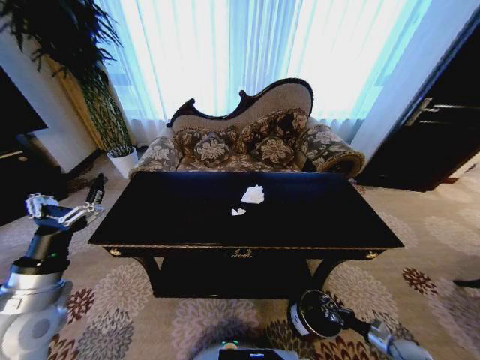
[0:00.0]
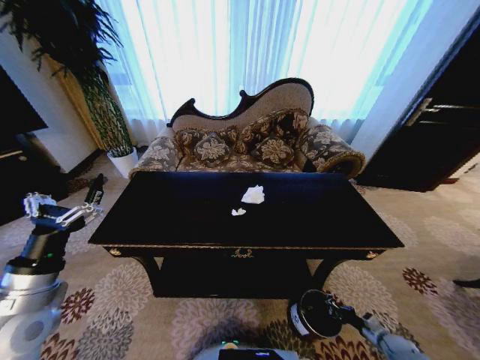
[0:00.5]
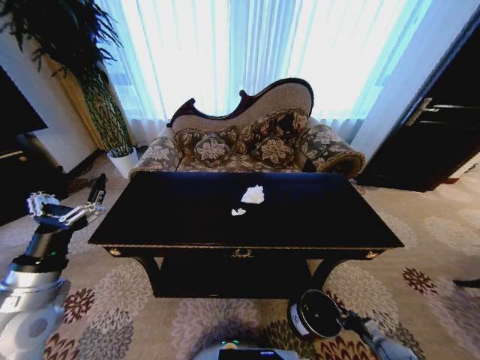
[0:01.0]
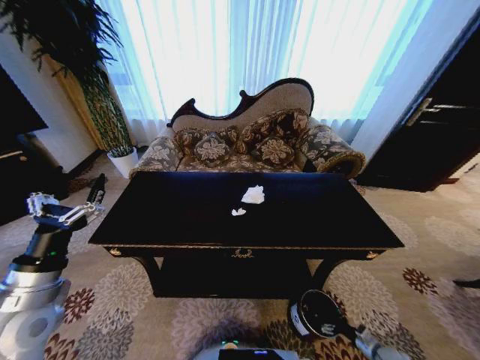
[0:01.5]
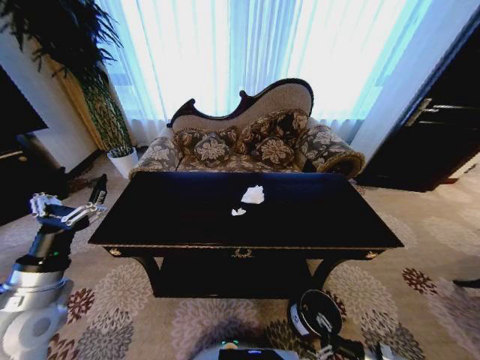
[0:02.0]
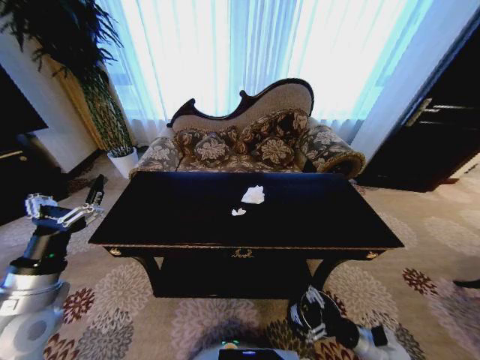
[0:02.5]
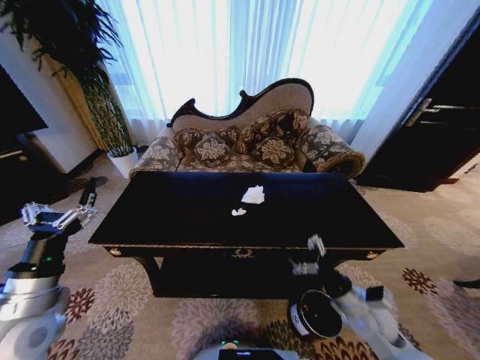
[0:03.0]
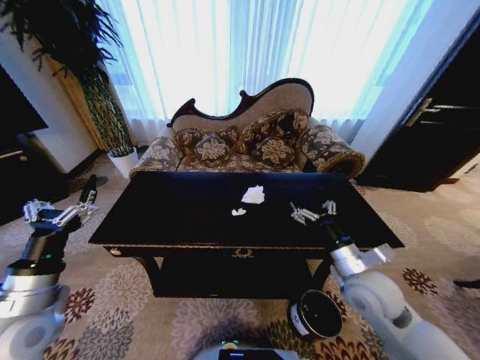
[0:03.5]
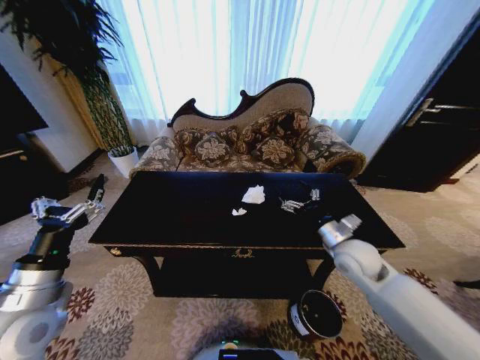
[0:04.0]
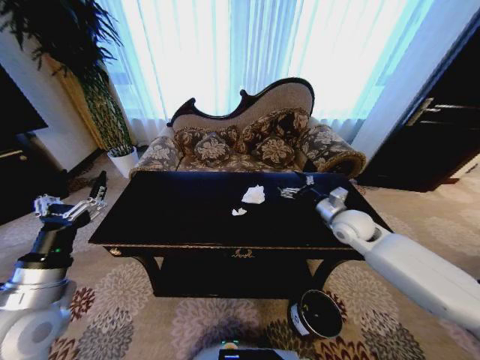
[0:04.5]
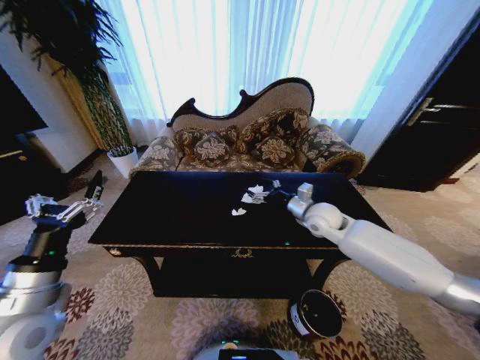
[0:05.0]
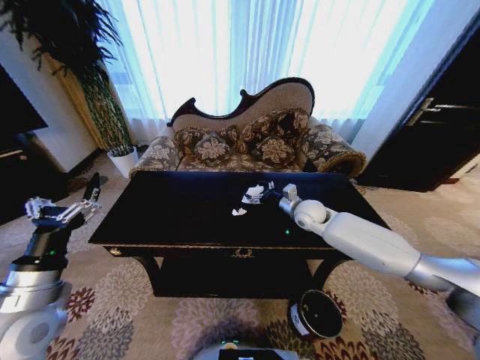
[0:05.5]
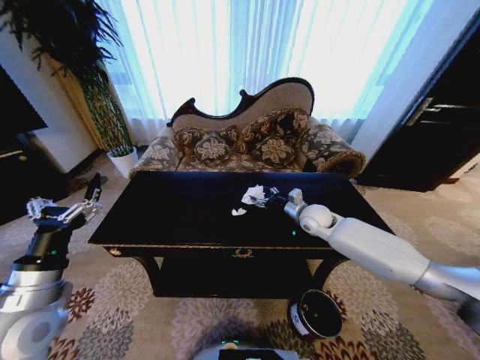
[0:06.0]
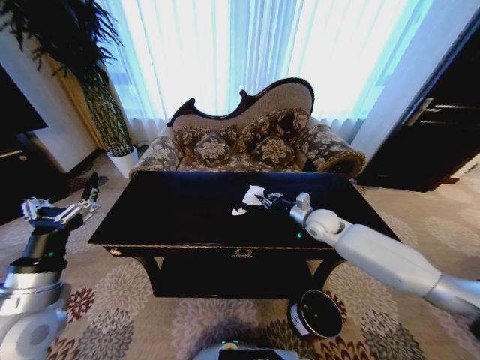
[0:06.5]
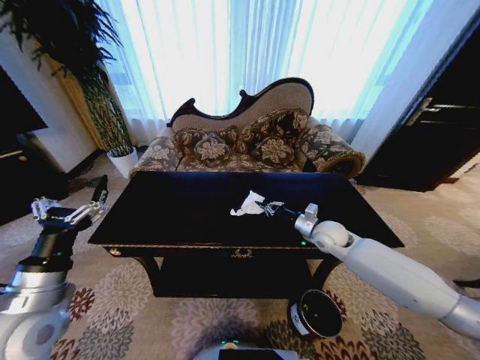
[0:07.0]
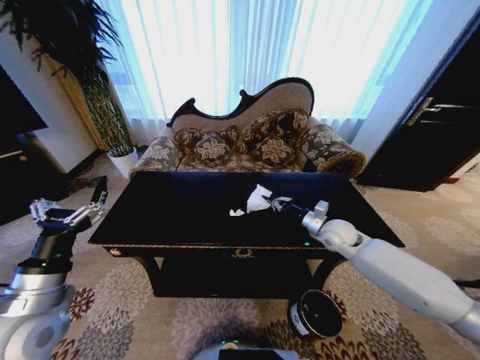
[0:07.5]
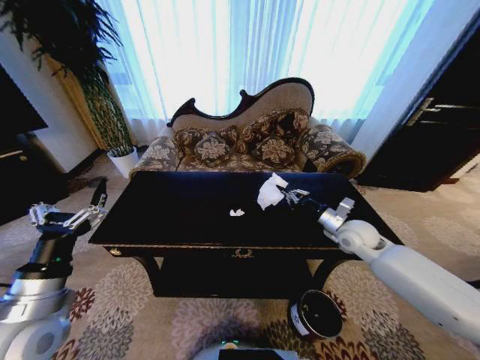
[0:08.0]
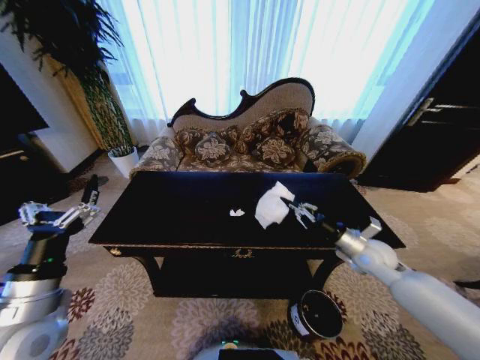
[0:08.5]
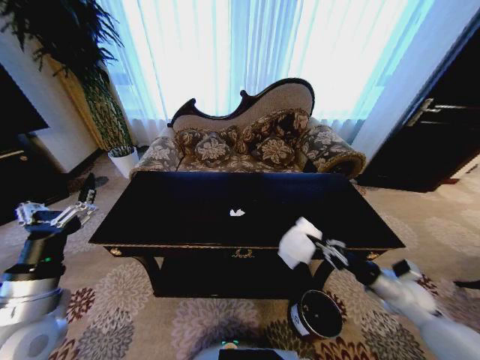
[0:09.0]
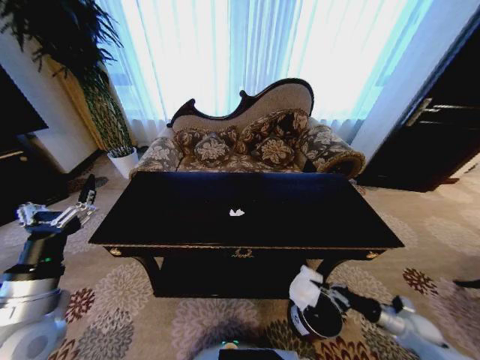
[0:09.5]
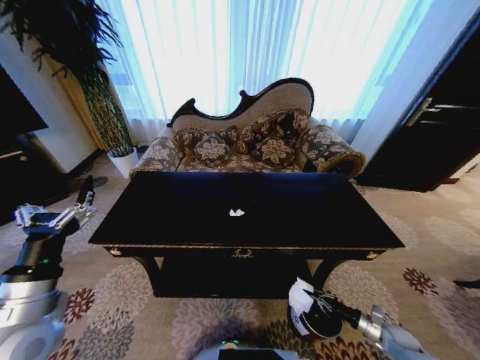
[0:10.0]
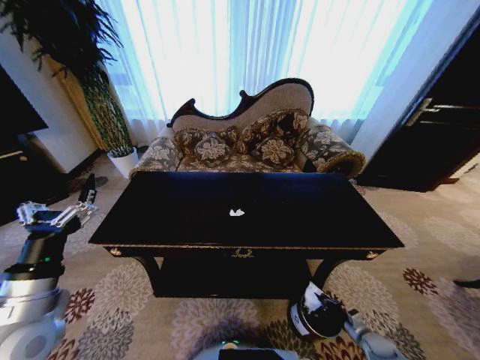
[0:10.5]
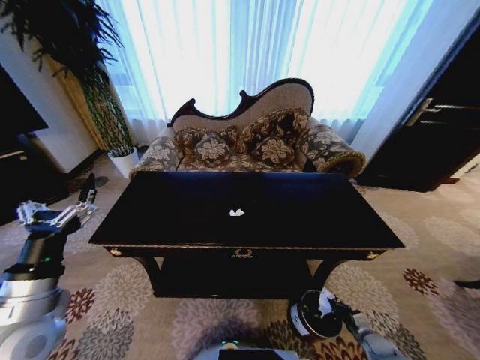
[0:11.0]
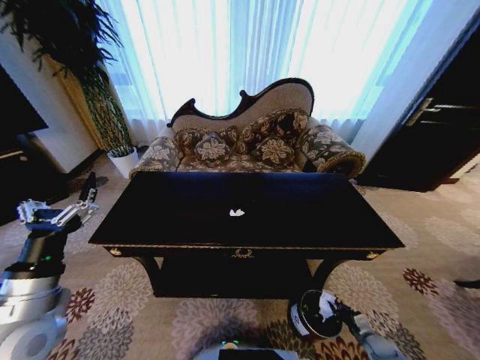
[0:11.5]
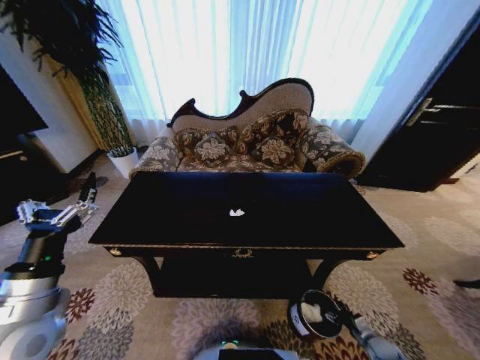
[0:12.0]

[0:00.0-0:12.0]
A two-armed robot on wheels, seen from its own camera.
Task of the whole recording: Move to the front of the table and place the trash on the table into the trash bin.
0:00.0 to 0:02.0: The right gripper goes roughly 10 cm to the left, and opens up.
0:02.0 to 0:04.0: The right gripper travels upward, forward and to the left by roughly 40 cm.
0:04.0 to 0:06.0: The right gripper goes roughly 15 cm forward.
0:06.0 to 0:08.0: The right gripper shifts roughly 10 cm to the right and backward, and closes up.
0:08.0 to 0:10.0: The right gripper is displaced downward, backward and to the right by roughly 40 cm.
0:10.0 to 0:12.0: The right gripper moves downward, about 5 cm, and opens.

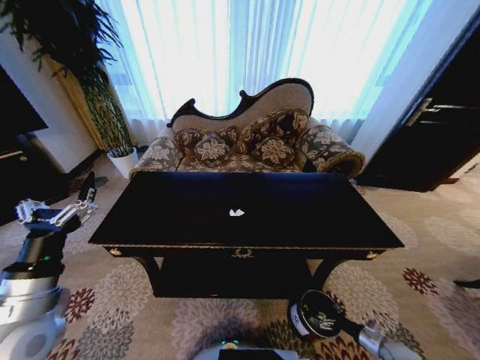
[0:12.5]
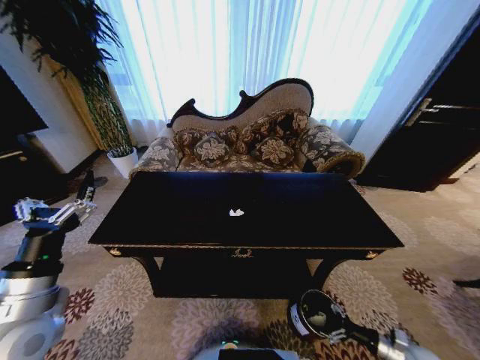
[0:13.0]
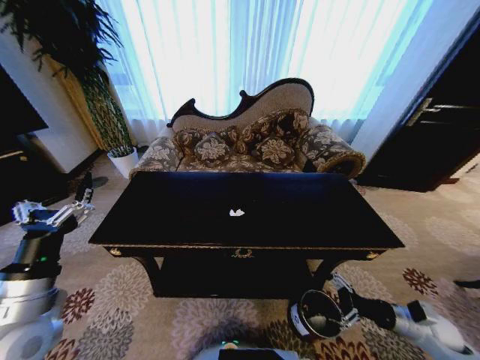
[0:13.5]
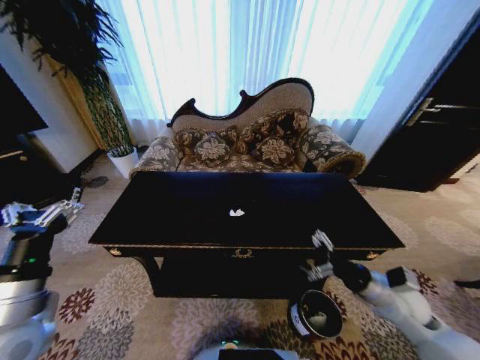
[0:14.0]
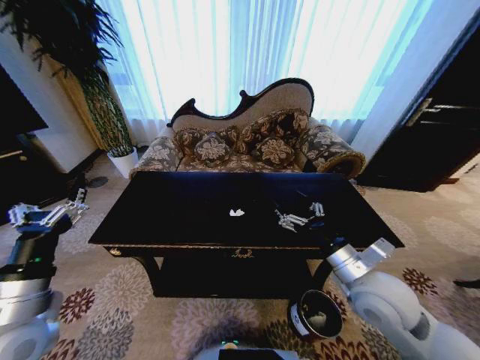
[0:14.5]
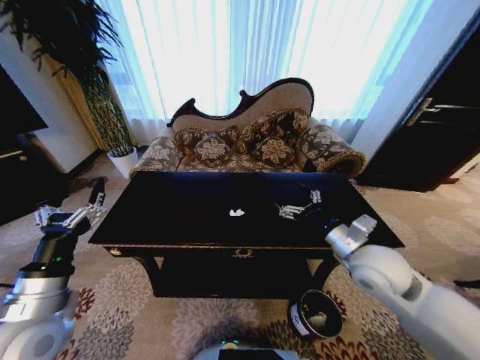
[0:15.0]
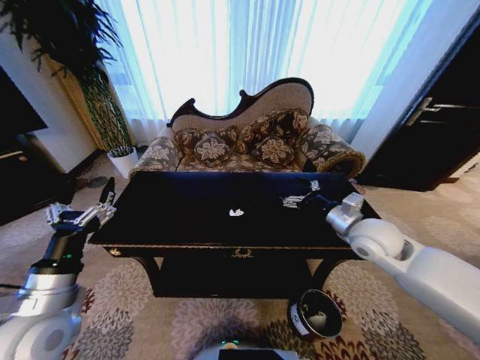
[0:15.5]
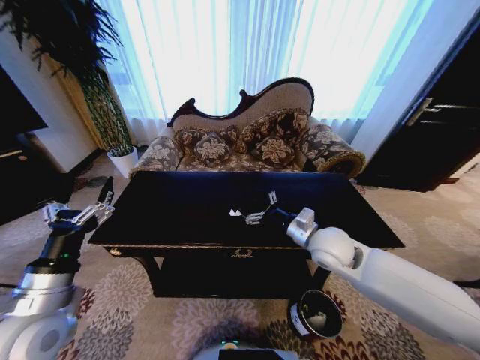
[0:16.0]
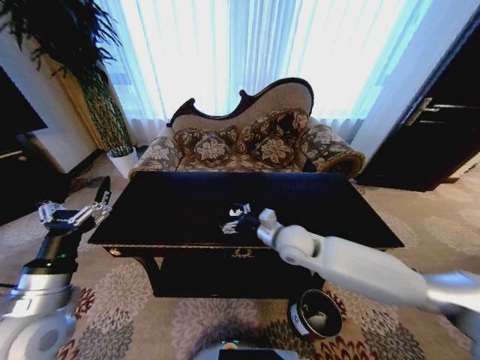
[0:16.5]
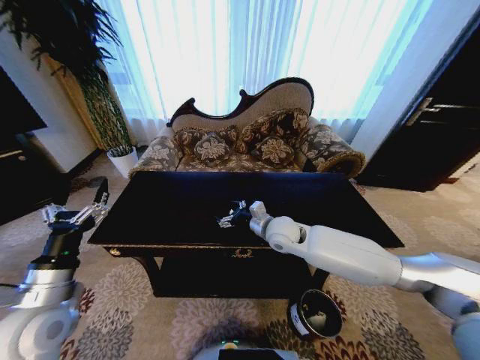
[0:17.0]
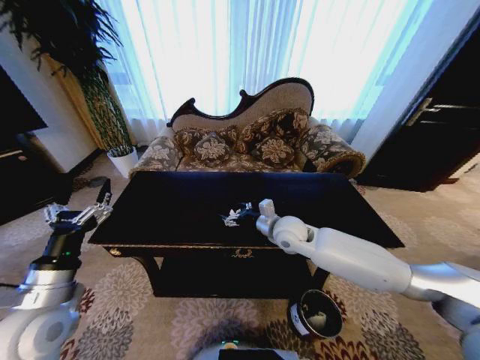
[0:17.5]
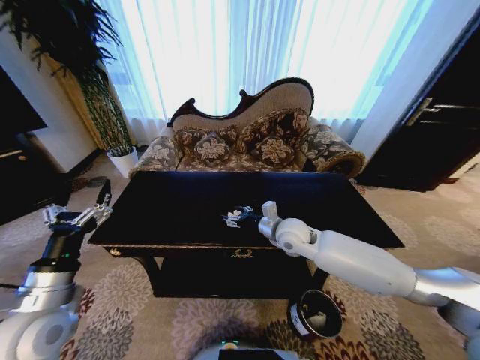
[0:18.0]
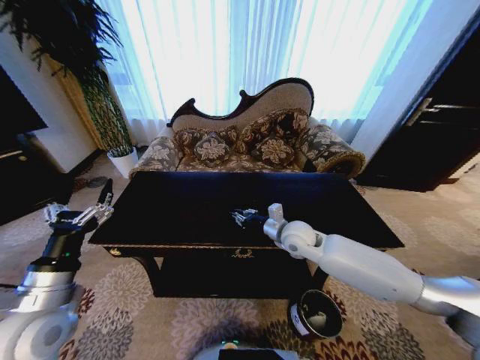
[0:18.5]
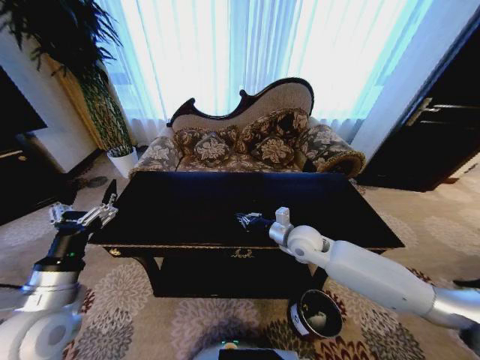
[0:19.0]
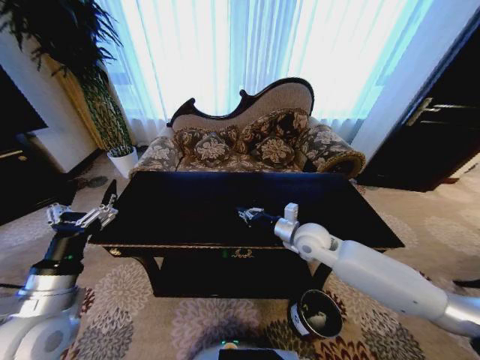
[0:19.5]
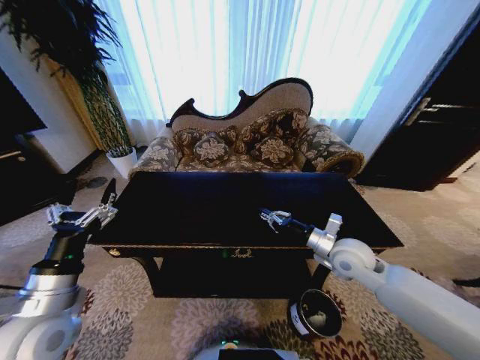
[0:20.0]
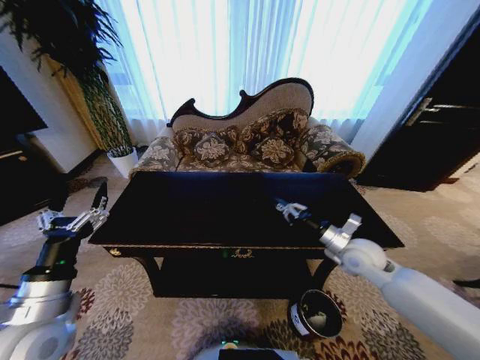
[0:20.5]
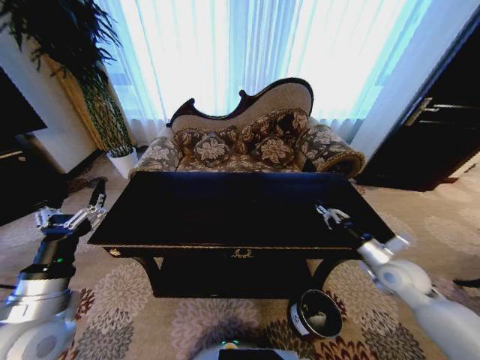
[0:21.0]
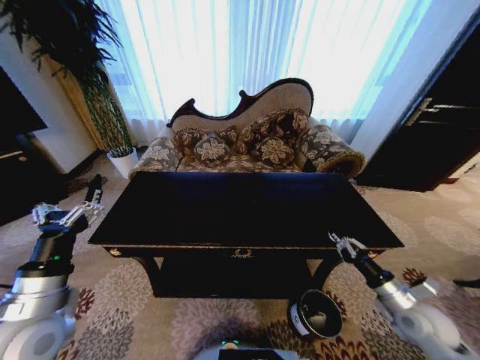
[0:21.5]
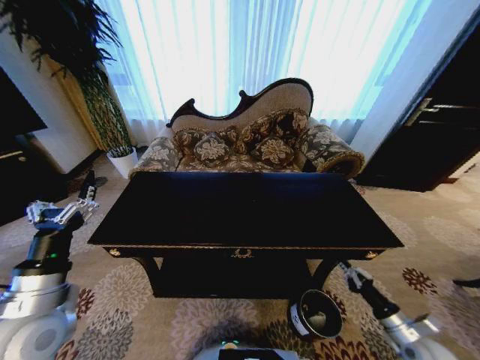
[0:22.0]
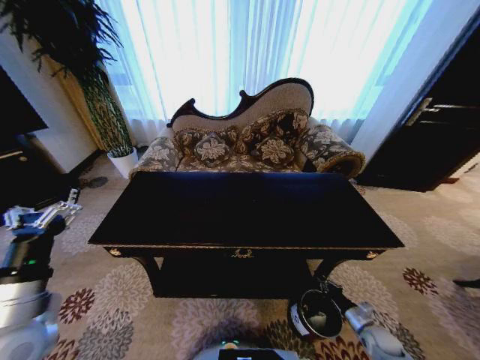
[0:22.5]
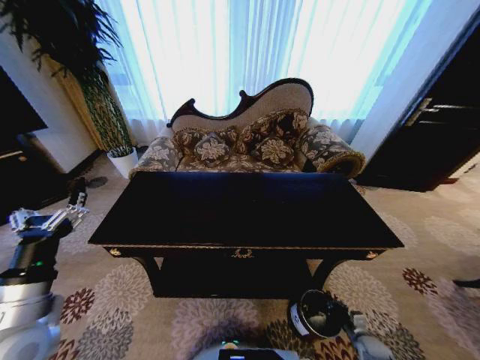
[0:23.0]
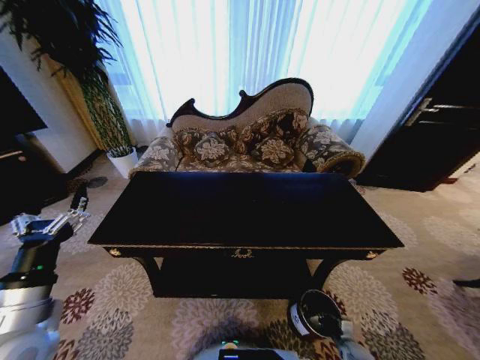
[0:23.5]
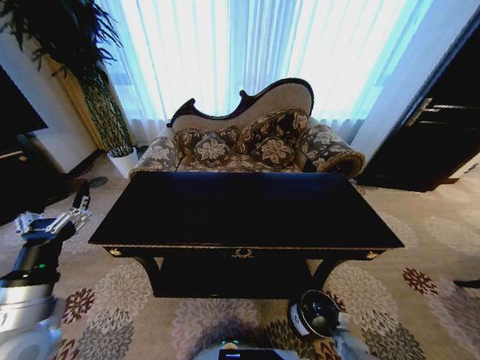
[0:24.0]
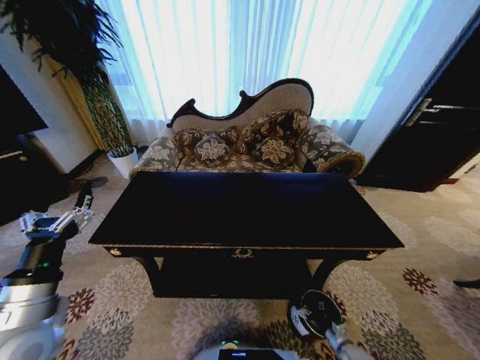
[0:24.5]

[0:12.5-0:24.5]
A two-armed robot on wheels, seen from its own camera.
Task of the whole recording: Move to the front of the table and place the trash on the table into the trash bin.
0:12.5 to 0:14.5: The right gripper goes roughly 50 cm upward and to the left.
0:14.5 to 0:16.5: The right gripper shifts about 20 cm forward and to the left.
0:16.5 to 0:18.5: The right gripper closes.
0:18.5 to 0:20.5: The right gripper goes some 15 cm to the right.
0:20.5 to 0:22.5: The right gripper travels downward, backward and to the right by approximately 35 cm.
0:22.5 to 0:24.5: The right gripper heads downward and to the left, covering approximately 10 cm, and opens up.

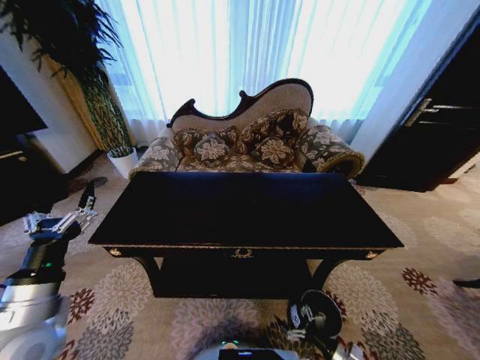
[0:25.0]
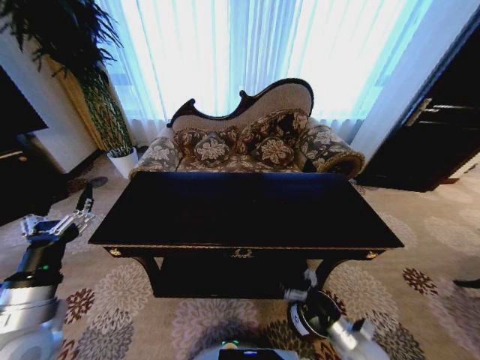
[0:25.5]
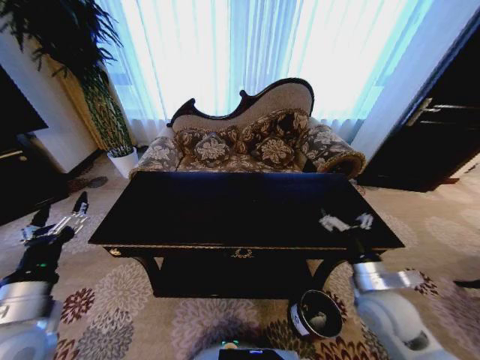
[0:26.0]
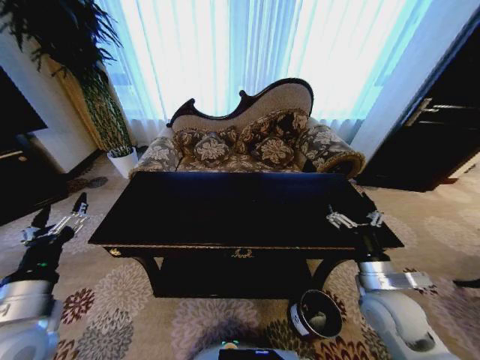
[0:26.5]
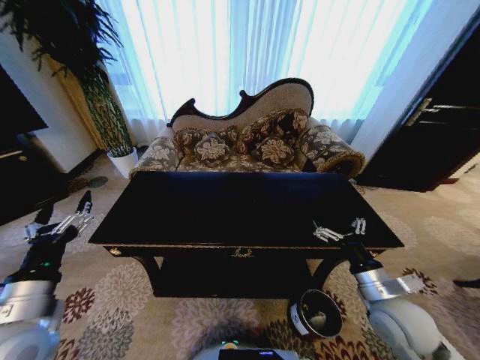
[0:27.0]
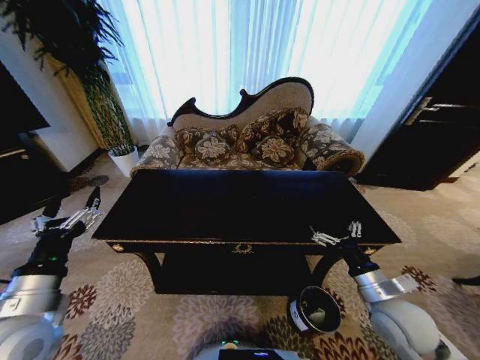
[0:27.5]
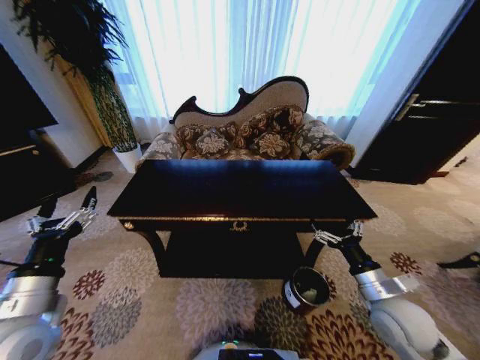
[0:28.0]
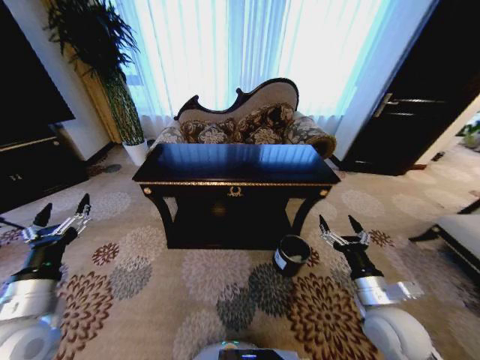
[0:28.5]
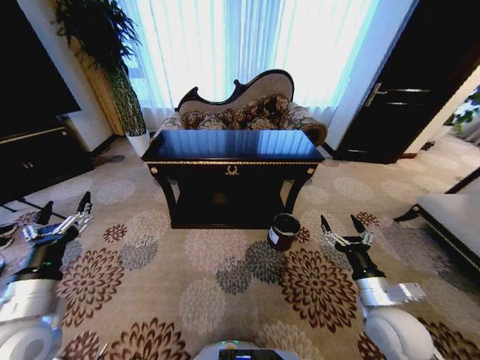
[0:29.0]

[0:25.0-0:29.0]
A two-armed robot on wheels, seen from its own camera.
Task of the whole recording: Move to the front of the table and place the trash on the table into the trash bin.
0:25.0 to 0:27.0: The right gripper goes about 30 cm upward.
